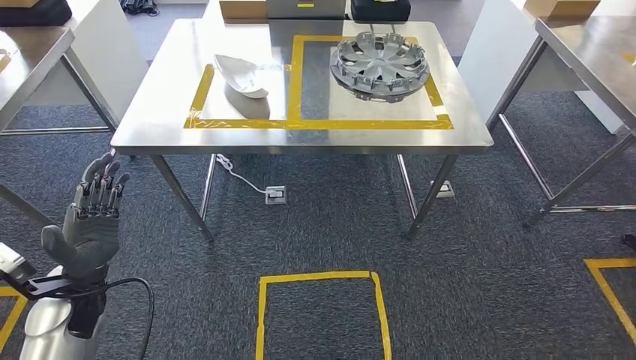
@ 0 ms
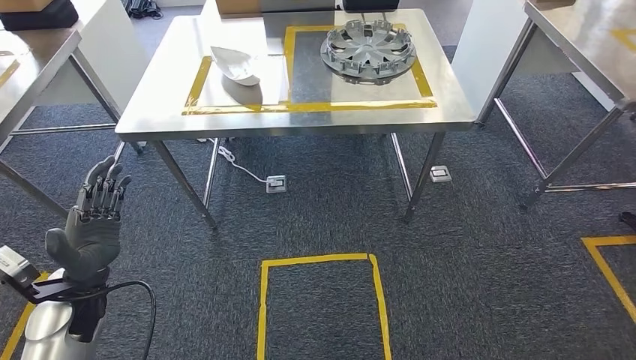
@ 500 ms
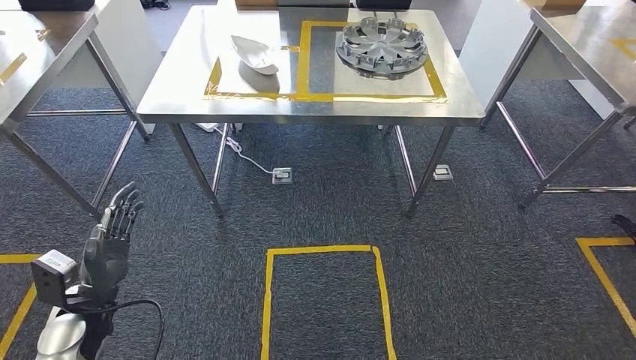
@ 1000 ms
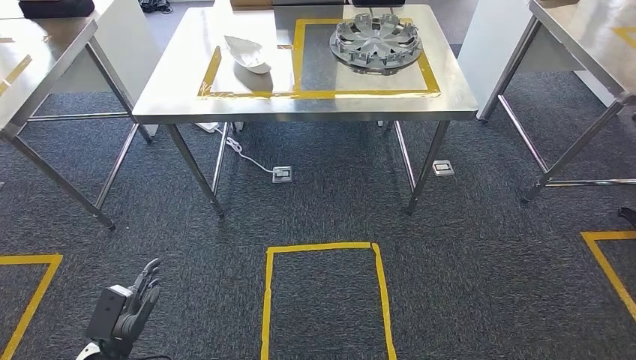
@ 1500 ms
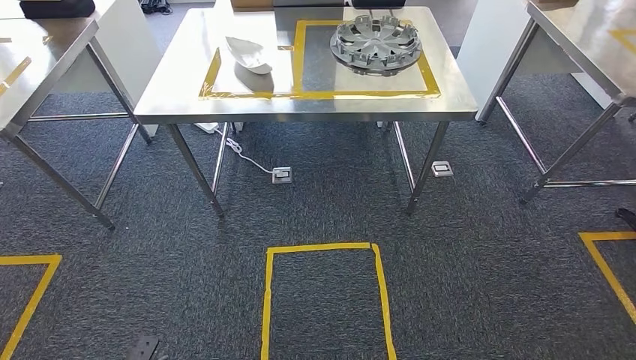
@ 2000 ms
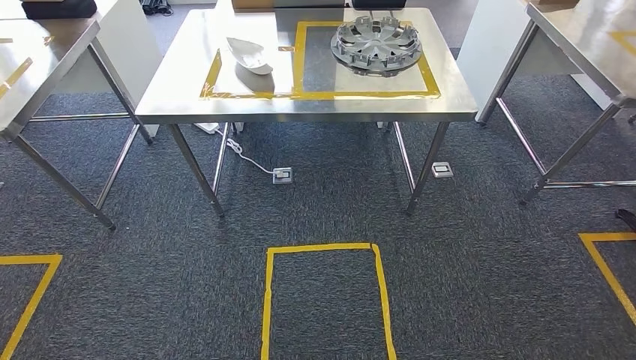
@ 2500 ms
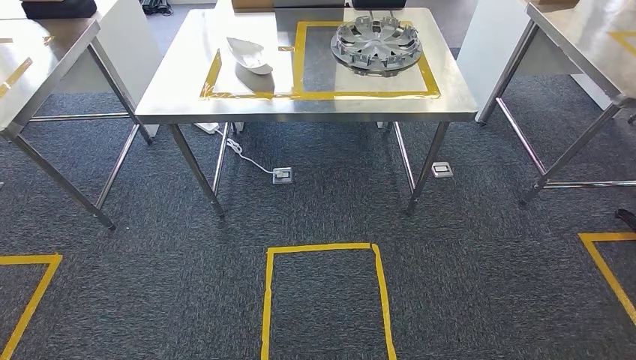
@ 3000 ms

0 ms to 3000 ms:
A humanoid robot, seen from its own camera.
Step, 0 ms to 2500 ms: Move to the initial position of the workbench.
1500 ms to 3000 ms: The left hand goes about 20 cm backward, downward and to the right.
